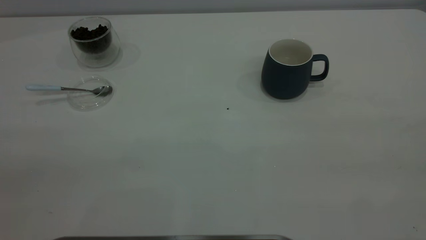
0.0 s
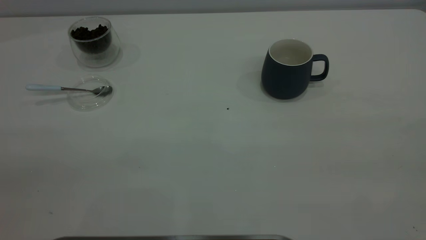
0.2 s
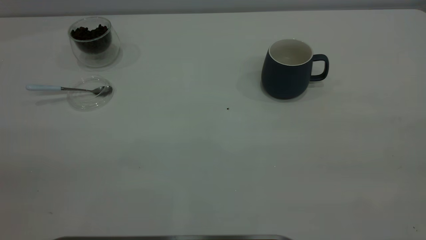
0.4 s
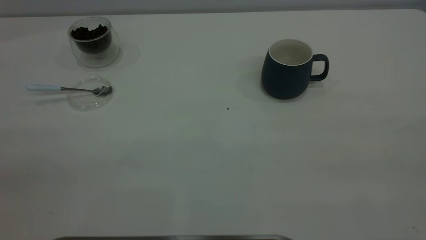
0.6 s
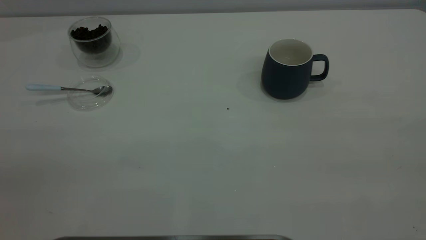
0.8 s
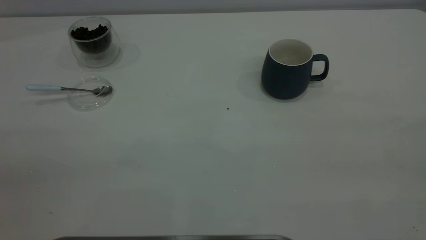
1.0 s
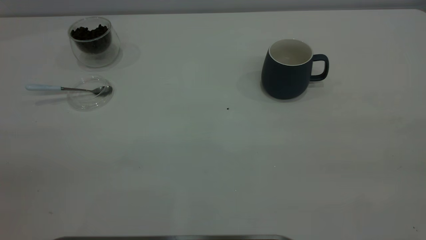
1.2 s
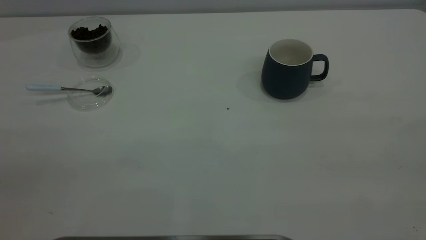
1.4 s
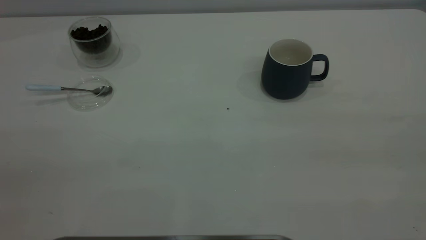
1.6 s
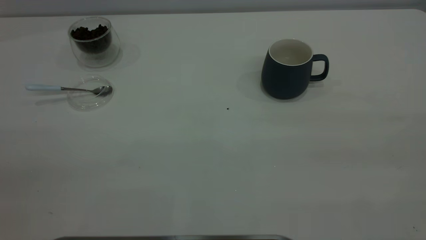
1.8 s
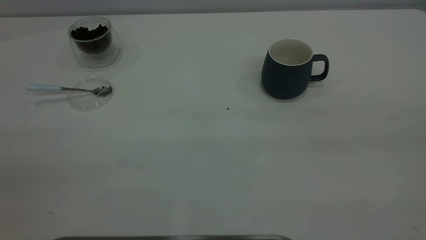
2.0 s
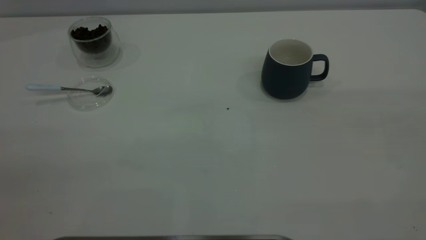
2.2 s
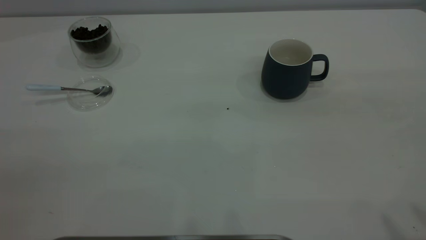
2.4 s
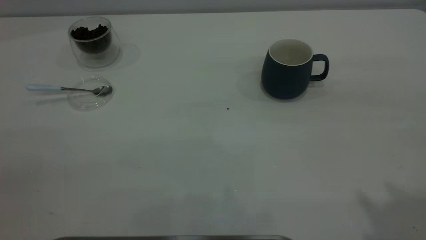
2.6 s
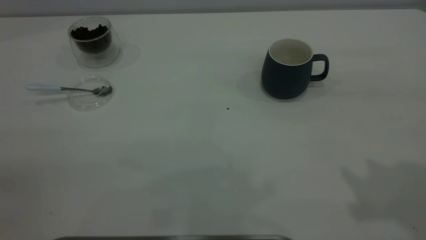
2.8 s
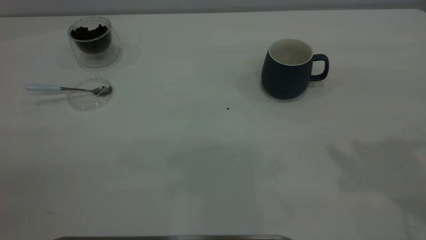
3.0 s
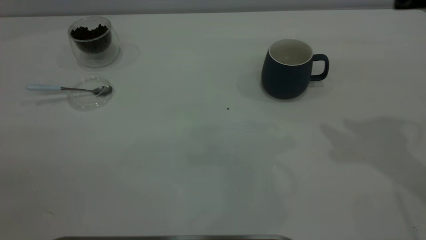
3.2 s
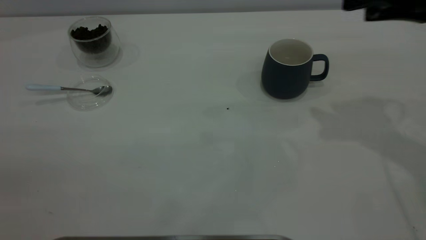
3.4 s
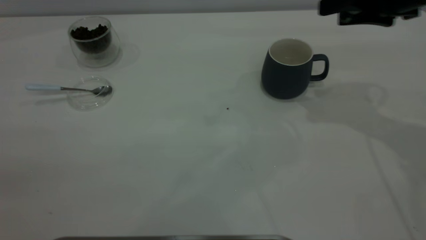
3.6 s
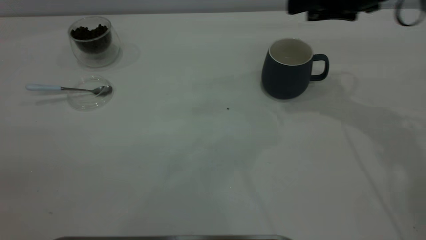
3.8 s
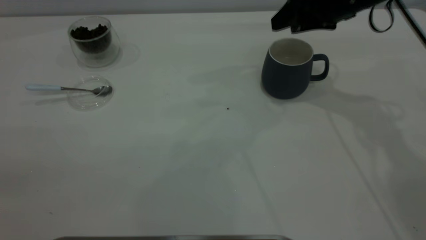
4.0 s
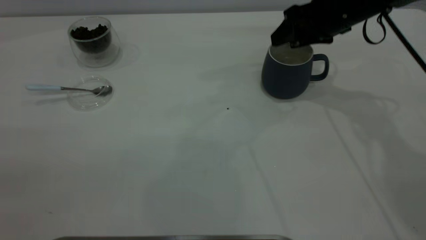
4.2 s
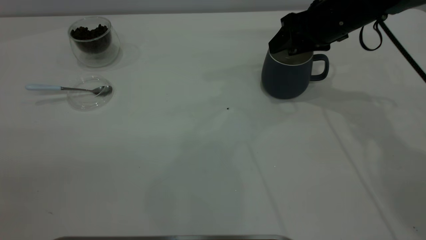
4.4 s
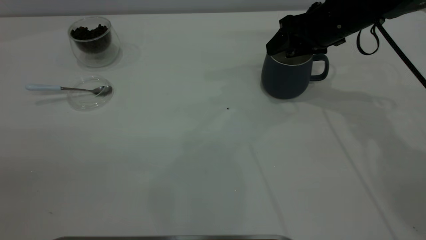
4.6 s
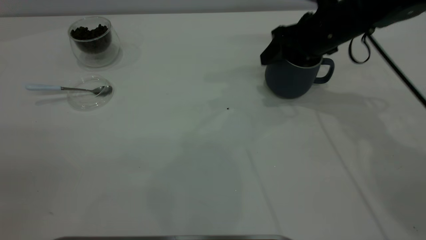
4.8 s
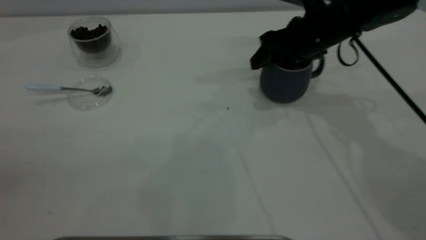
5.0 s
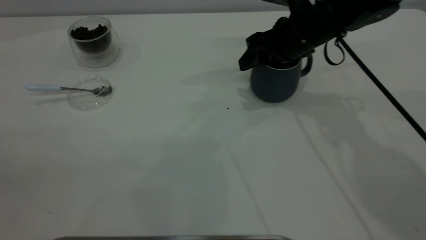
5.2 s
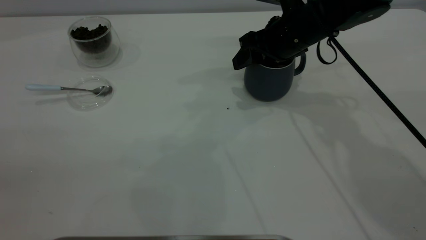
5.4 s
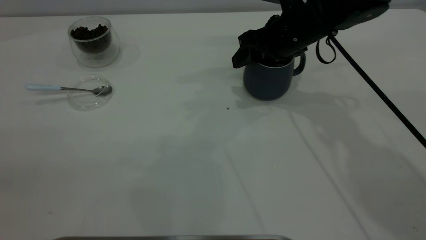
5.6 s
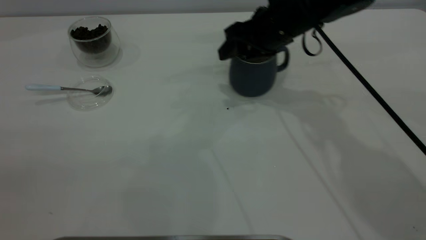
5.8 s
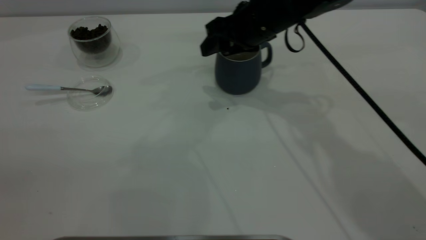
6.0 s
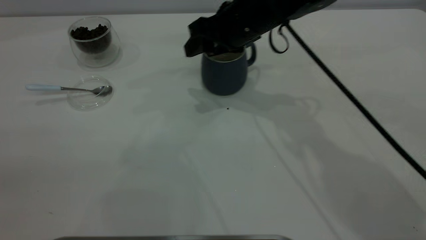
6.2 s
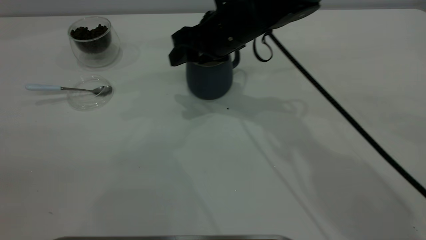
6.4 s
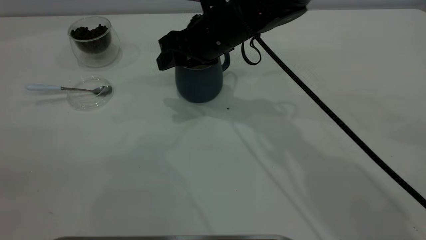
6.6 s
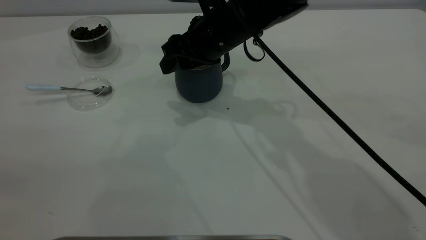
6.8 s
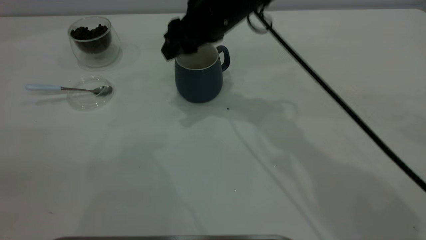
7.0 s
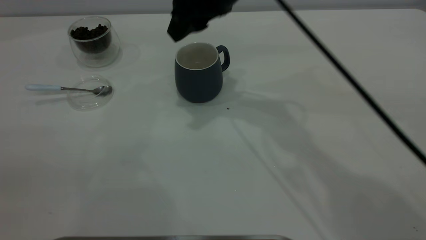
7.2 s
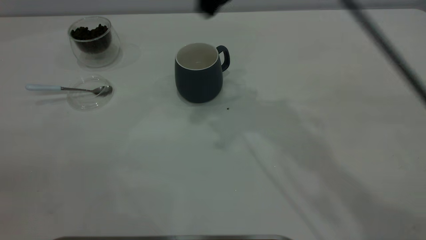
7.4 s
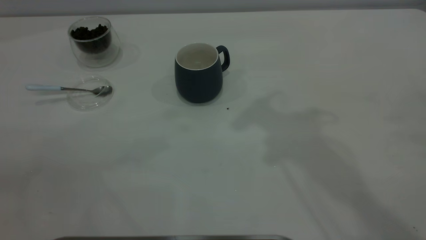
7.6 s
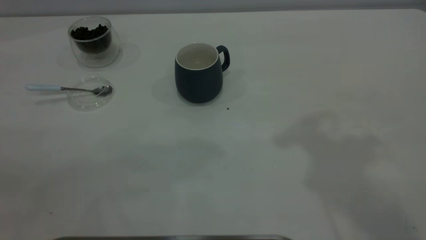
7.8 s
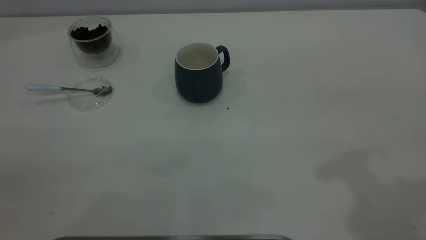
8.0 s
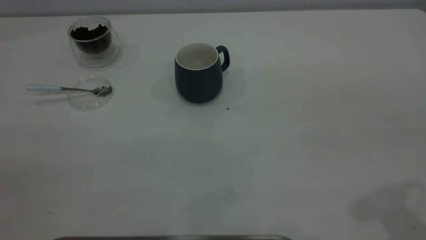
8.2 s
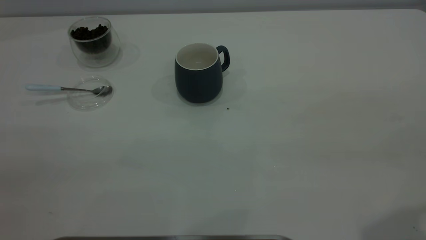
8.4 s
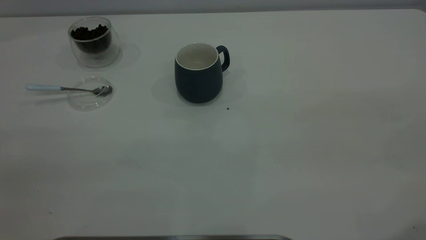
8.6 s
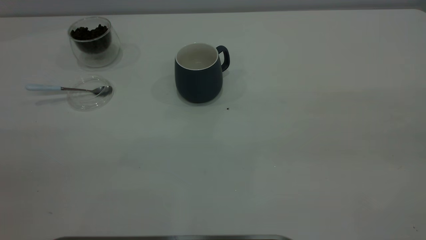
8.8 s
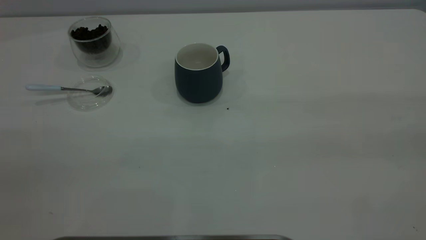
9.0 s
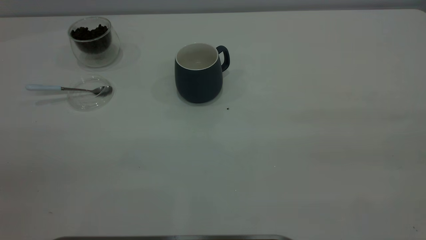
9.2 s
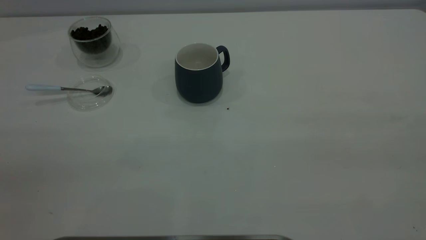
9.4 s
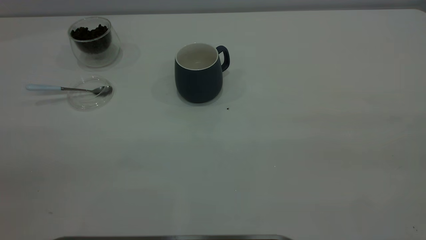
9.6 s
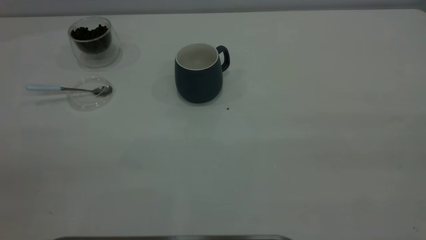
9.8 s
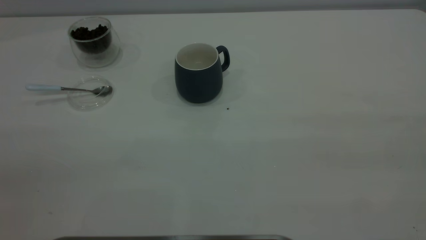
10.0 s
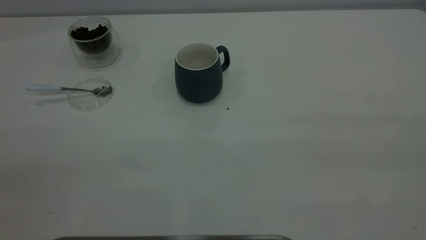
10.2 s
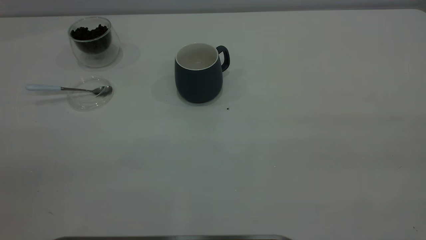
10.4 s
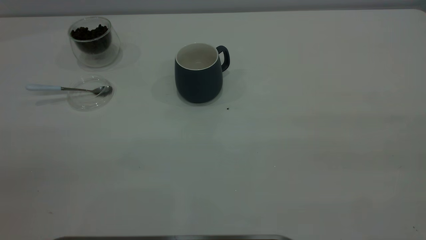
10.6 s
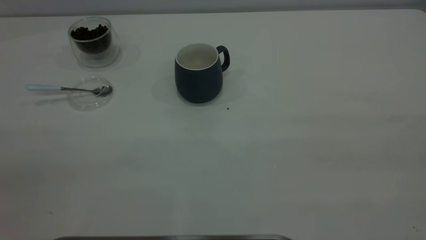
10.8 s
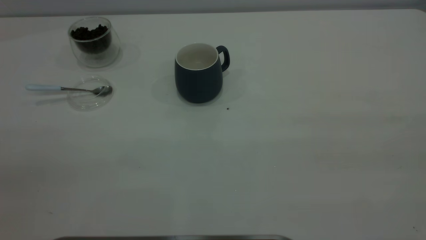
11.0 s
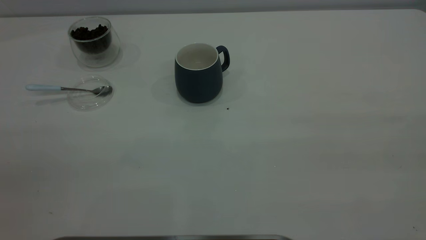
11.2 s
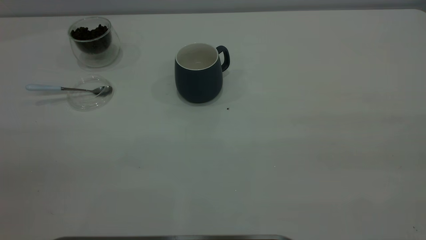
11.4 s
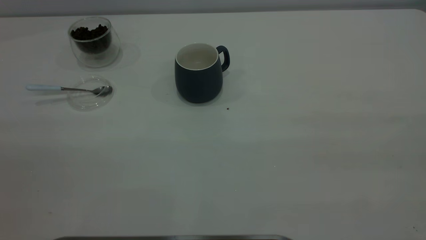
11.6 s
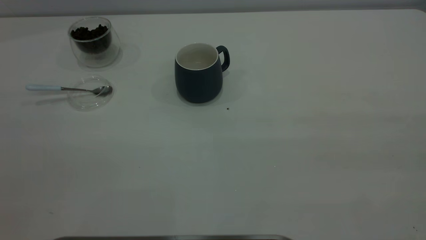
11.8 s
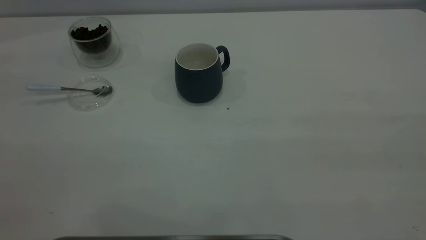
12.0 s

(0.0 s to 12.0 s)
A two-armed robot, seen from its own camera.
Task of the whole recording: the right gripper place the grey cup in the center of the table, the left gripper take the blue spoon from the cup lid and scoop out the coffee beans from the coffee cup and put them into the grey cup, the left gripper put the spoon back into the cup lid.
Step, 0.0 s - 7.0 s: Move the cup to the center of view.
3.0 s - 4.4 s: The right gripper shifts roughly 25 cm forward and downward.
4.4 s - 6.0 s: The right gripper moves to the left, about 10 cm.
6.0 s - 7.6 s: The right gripper moves upward and backward, some 25 cm.

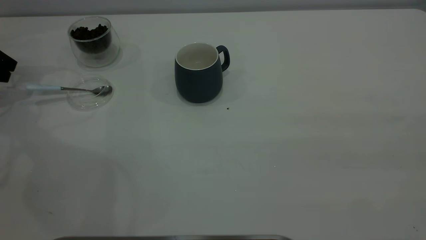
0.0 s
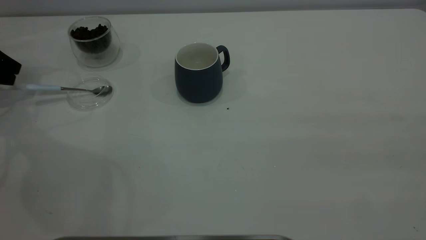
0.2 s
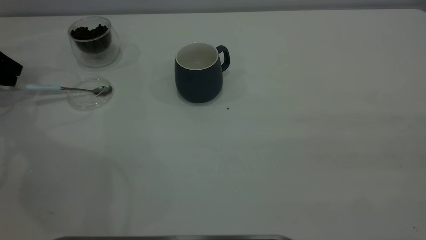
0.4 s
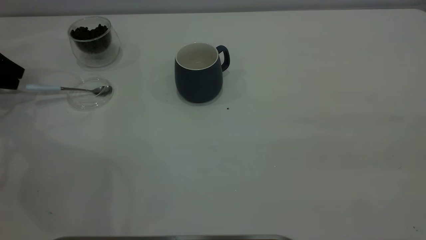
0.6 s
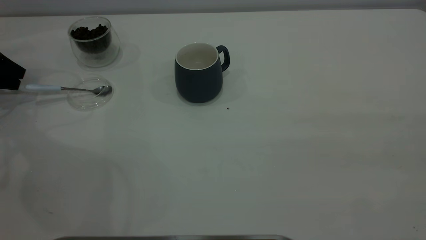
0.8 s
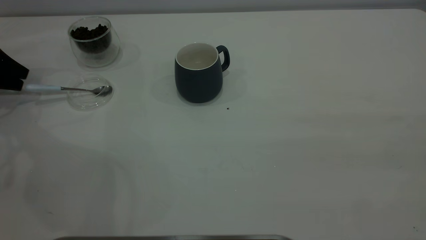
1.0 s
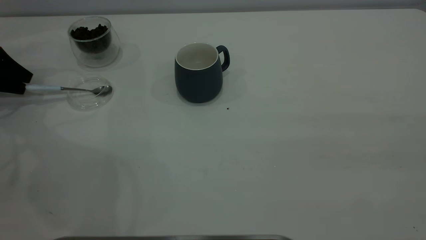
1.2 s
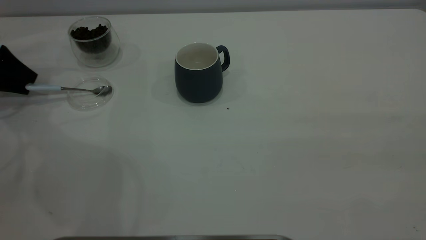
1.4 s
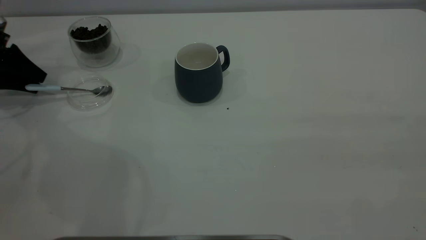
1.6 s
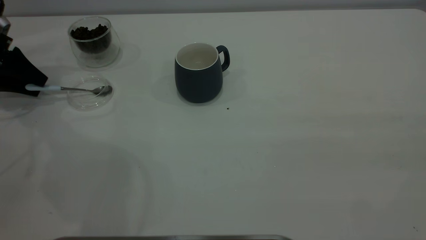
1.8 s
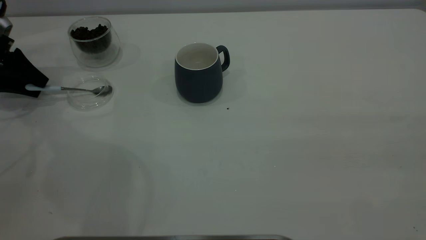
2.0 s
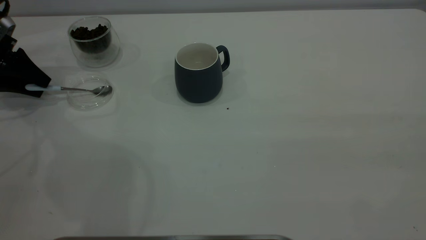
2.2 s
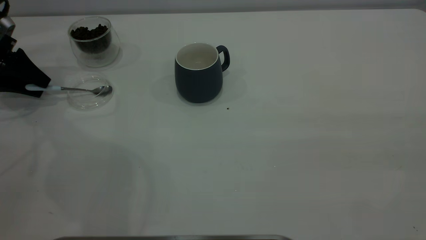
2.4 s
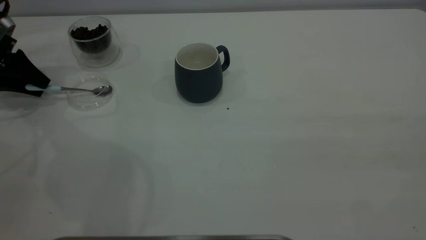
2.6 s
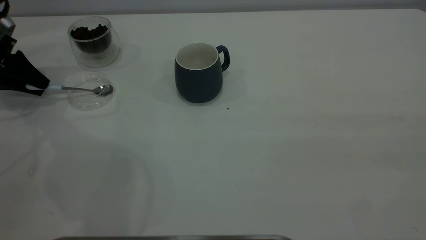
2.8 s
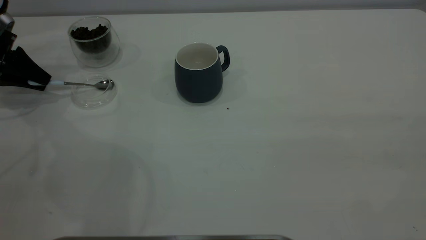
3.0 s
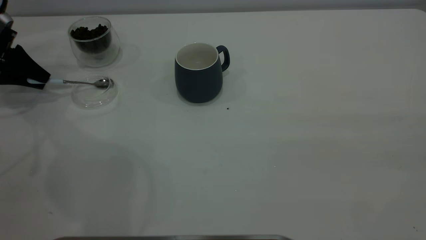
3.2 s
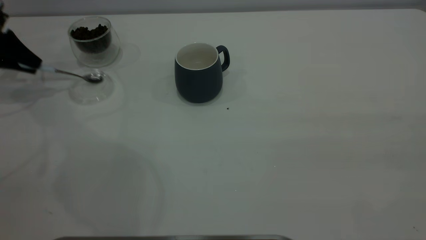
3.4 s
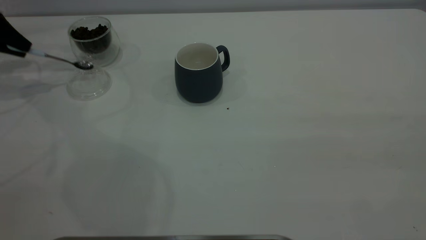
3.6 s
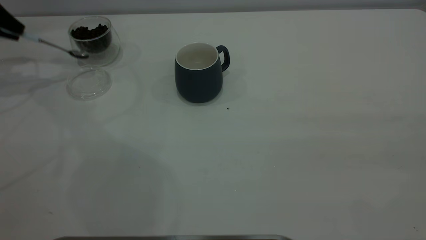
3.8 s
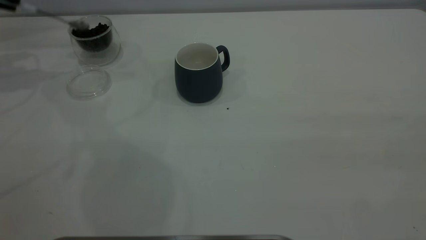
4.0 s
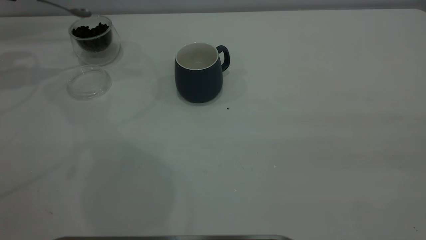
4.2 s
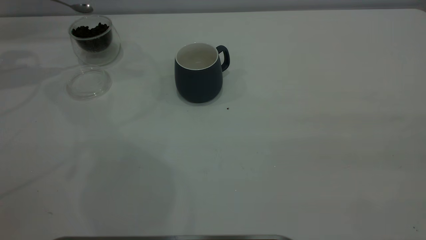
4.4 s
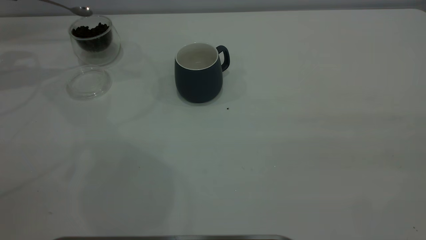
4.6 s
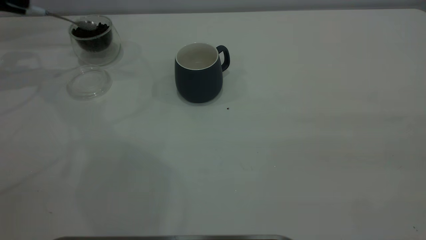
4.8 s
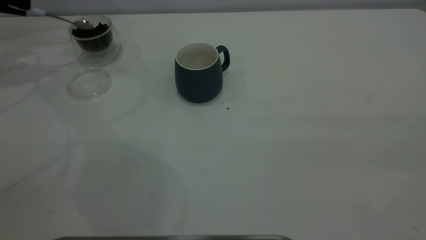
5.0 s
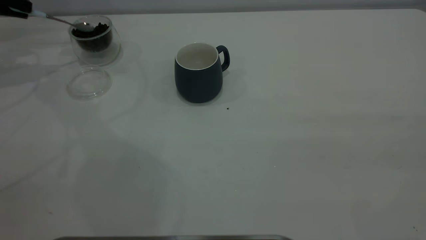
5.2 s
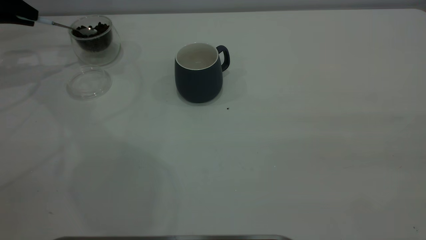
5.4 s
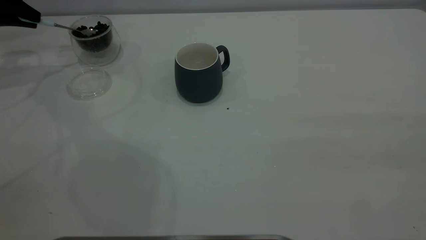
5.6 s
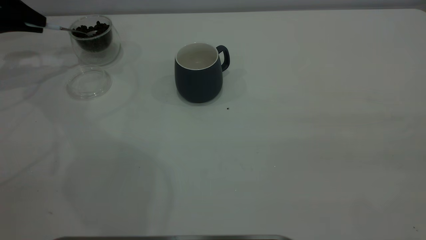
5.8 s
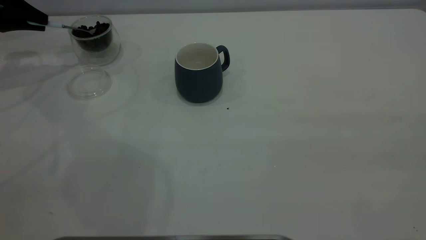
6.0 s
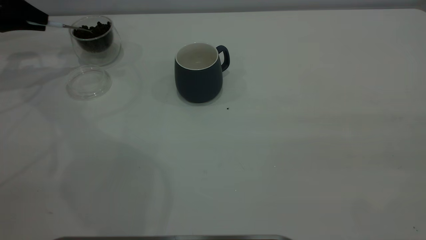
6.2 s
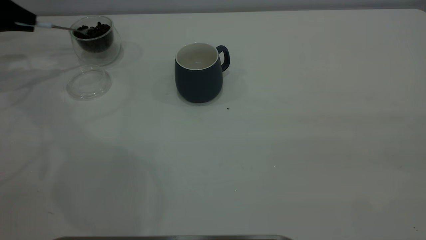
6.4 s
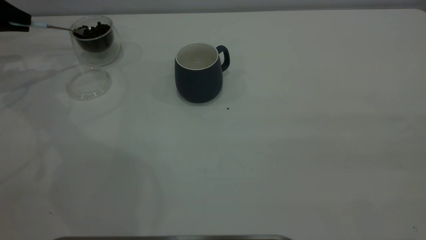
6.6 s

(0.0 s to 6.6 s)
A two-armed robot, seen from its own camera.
Task of the whole recording: the right gripper place the grey cup in the center of the table, the left gripper take the blue spoon from the cup lid and scoop out the coffee beans from the coffee cup and put them into the grey cup, the left gripper put the spoon back into the cup lid.
Step, 0.0 s - 3.6 s: Pick up the spoon.
0.0 s - 1.6 s: The left gripper changes place by roughly 5 cm.
1.6 s - 3.2 s: The left gripper closes up.
3.2 s - 5.0 s: The left gripper goes about 10 cm upward.
5.0 s - 6.6 s: The grippers stay close to where they were, moving slightly.
